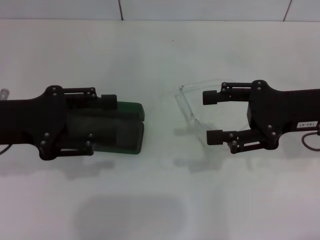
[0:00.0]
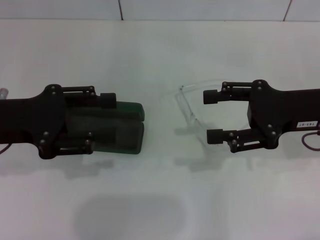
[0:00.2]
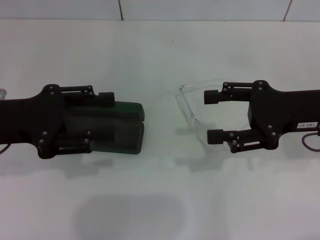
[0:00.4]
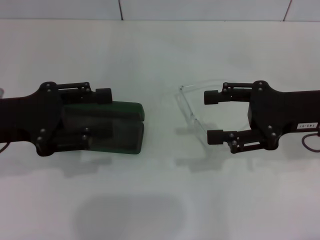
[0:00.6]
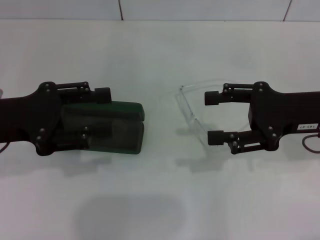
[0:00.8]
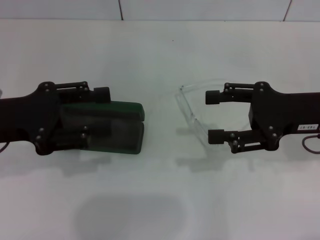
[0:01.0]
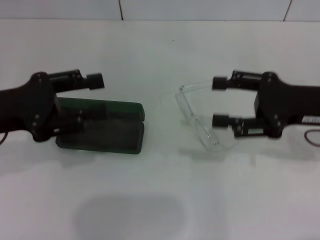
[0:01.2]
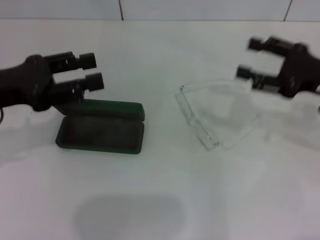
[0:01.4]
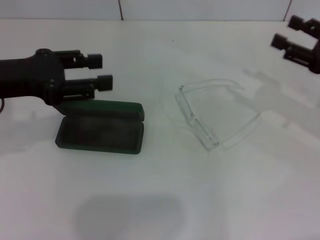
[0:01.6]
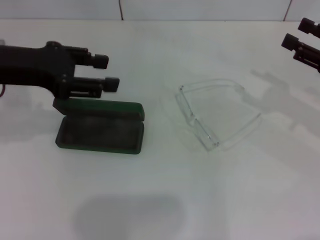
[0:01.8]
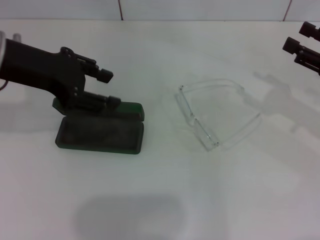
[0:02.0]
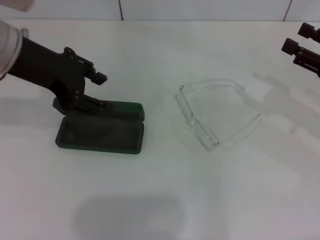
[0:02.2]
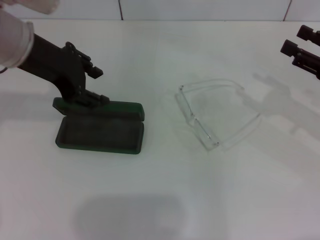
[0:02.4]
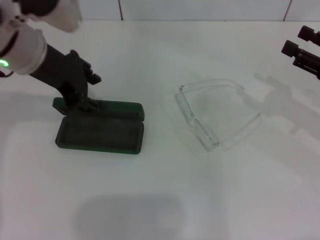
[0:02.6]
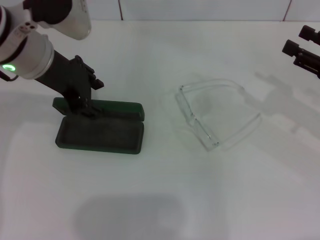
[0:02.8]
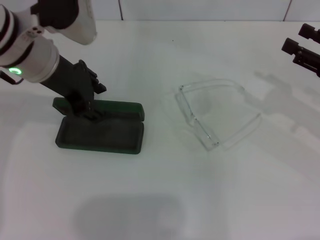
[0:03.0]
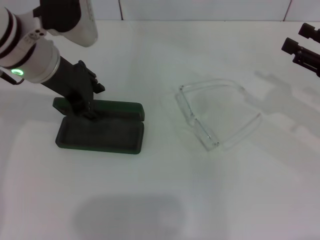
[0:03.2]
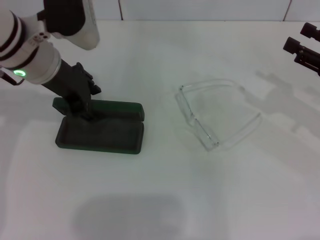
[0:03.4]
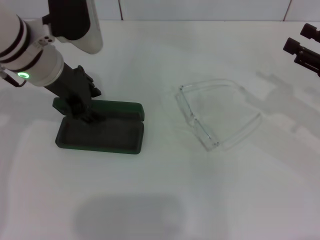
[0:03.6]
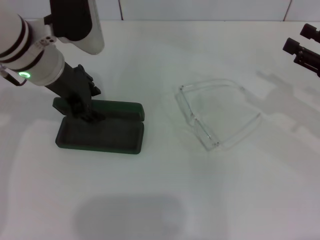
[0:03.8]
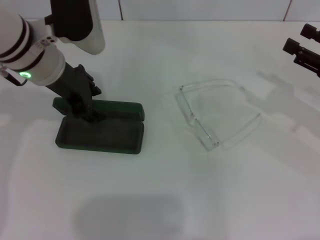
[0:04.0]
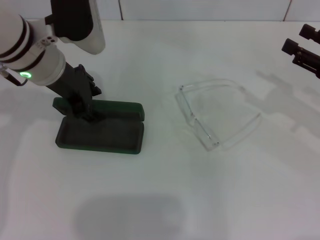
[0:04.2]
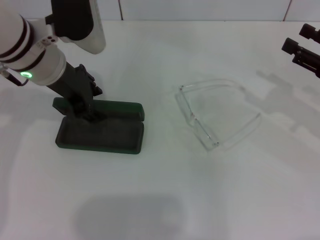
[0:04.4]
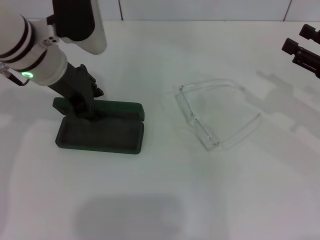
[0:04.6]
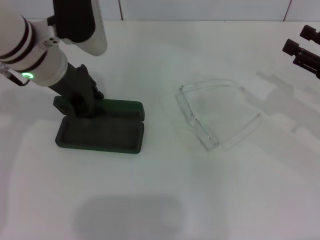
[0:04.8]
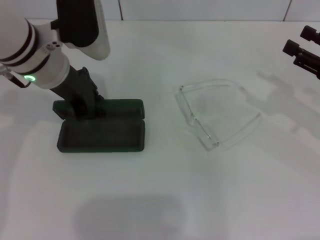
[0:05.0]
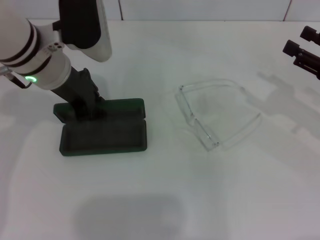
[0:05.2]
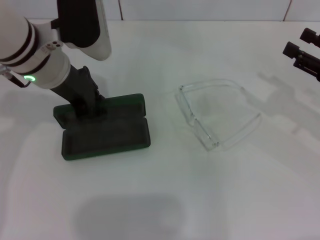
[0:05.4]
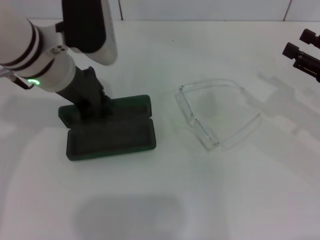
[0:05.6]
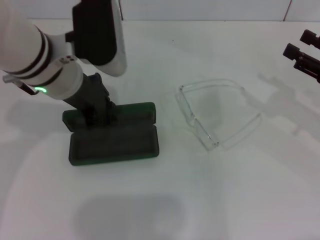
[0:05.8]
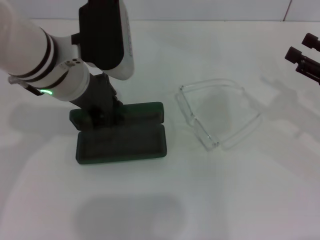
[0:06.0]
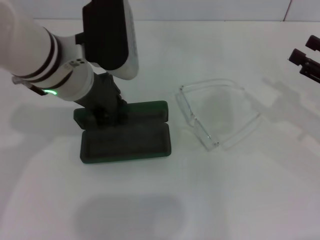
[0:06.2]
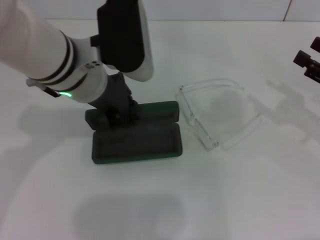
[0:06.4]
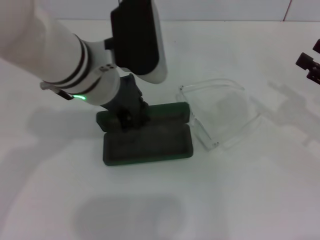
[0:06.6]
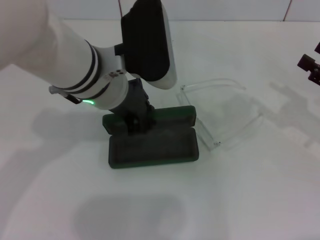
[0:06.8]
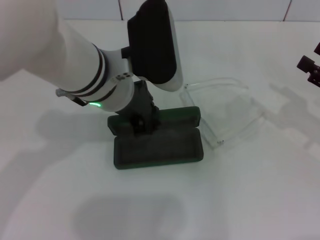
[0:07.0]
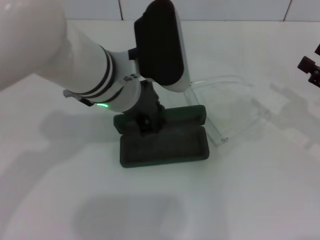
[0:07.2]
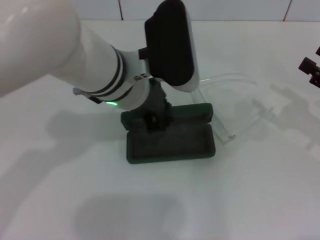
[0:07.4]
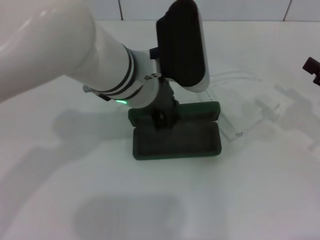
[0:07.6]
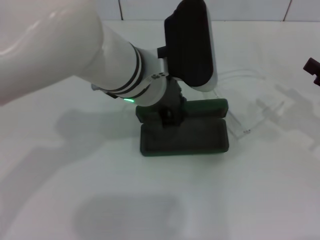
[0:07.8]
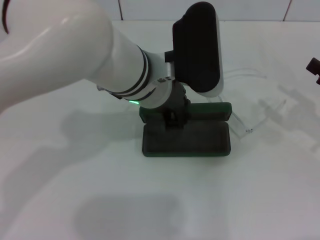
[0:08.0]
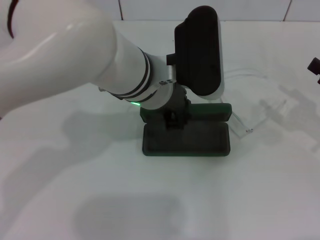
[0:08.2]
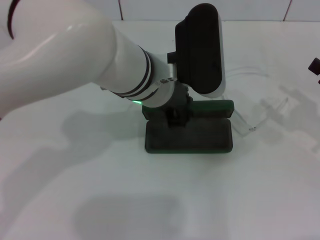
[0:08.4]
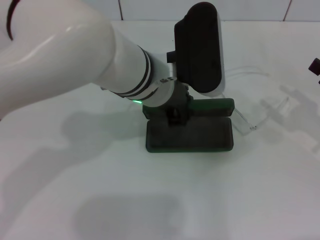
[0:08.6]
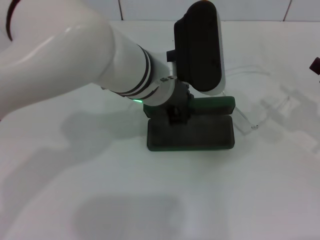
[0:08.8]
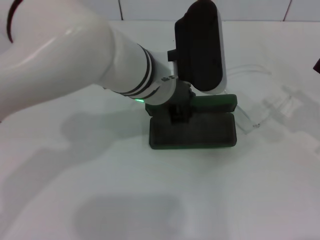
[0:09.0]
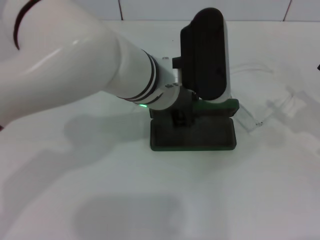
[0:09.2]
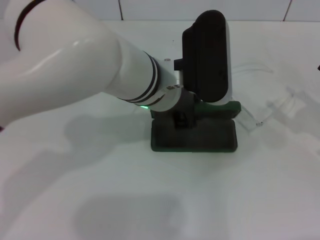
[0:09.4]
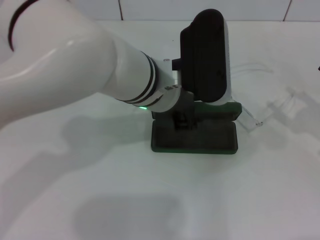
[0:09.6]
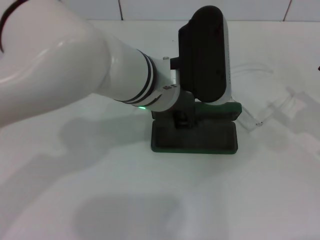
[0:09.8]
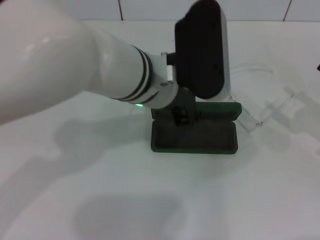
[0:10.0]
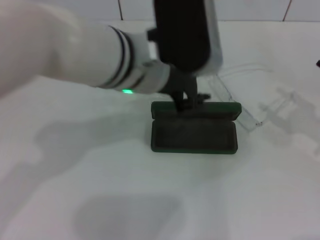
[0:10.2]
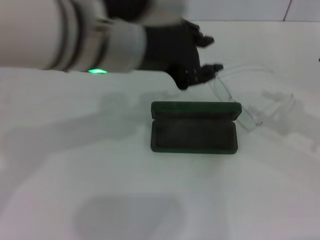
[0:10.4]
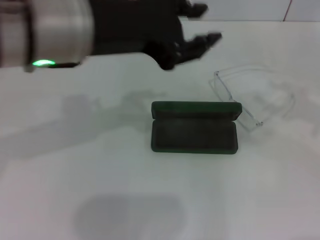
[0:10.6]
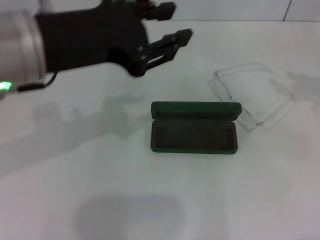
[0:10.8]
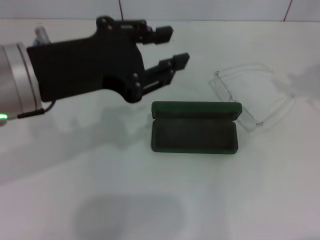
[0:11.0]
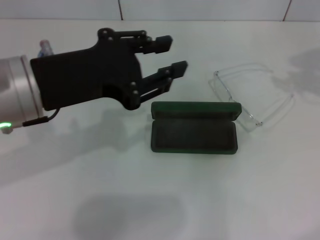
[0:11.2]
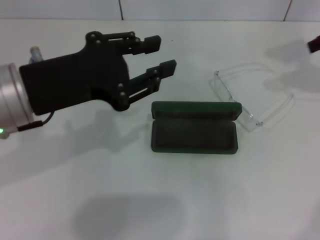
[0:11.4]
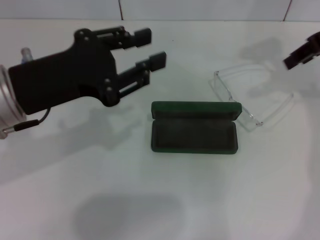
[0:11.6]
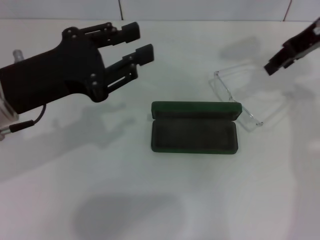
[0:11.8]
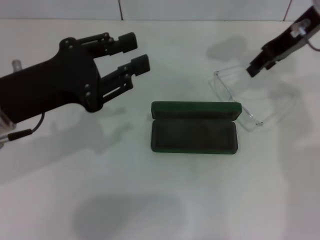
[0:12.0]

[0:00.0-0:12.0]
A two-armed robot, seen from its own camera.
Step, 0:00.0 to 0:05.0: Grab the glasses case with your left hand.
Step, 0:05.4 to 0:09.8: Place the glasses case in the center of the table with your left hand.
0:00.0 to 0:01.6: The right gripper moves to the right, roughly 10 cm.
0:01.6 to 0:03.0: The left gripper shifts some 10 cm to the right and forward.
0:03.0 to 0:04.4: The grippers stay close to where they were, moving slightly.
0:04.4 to 0:06.0: The left gripper moves some 5 cm, and closes its fingers.
0:06.0 to 0:07.6: The left gripper is displaced to the right by approximately 10 cm.
0:07.6 to 0:09.0: There are only small adjustments of the grippers.
0:09.0 to 0:10.4: The left gripper shifts roughly 10 cm upward and to the left; the right gripper shifts some 5 cm upward.
0:10.4 to 0:12.0: The left gripper is displaced to the left and downward by roughly 15 cm. Meanwhile the right gripper shifts some 25 cm to the left, forward and upward.

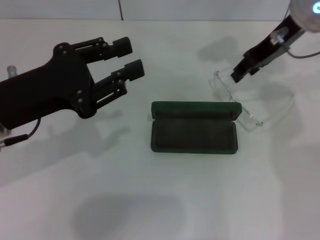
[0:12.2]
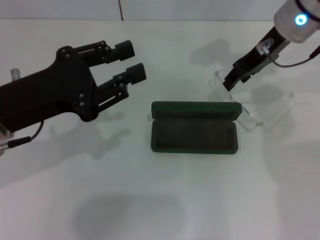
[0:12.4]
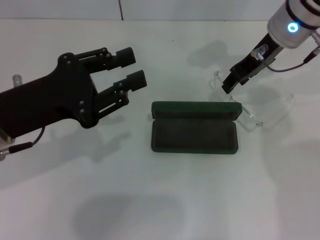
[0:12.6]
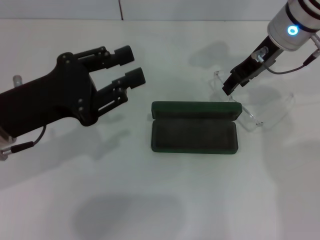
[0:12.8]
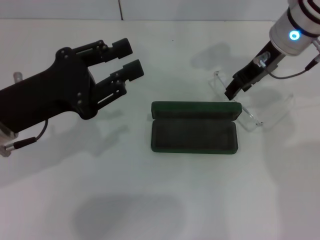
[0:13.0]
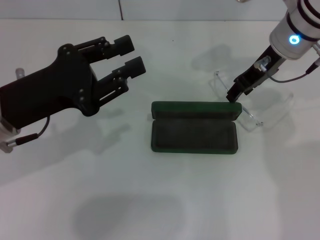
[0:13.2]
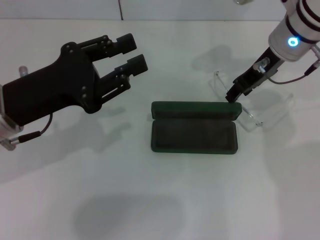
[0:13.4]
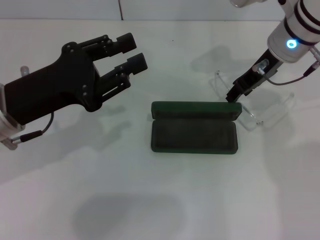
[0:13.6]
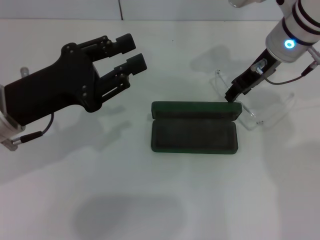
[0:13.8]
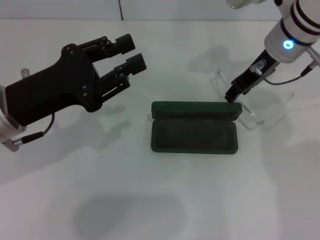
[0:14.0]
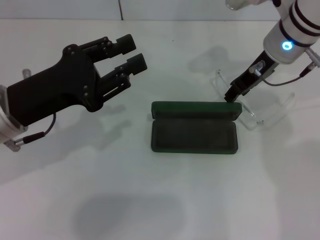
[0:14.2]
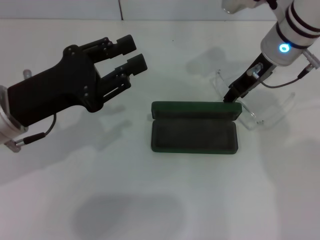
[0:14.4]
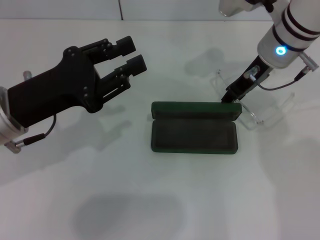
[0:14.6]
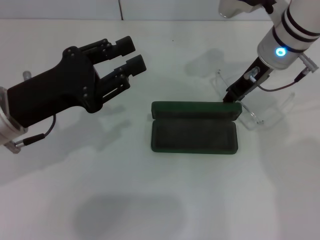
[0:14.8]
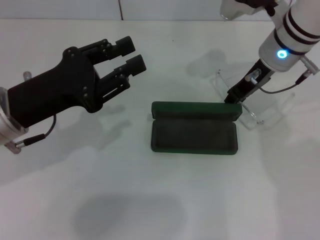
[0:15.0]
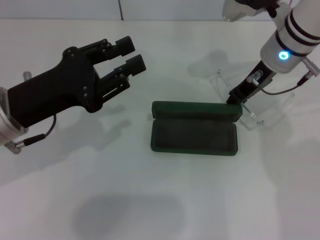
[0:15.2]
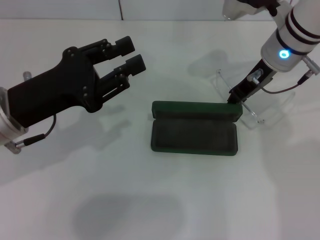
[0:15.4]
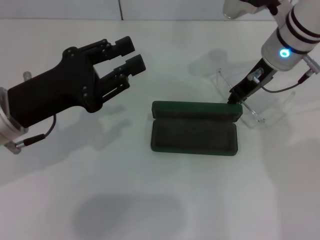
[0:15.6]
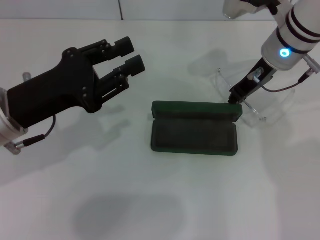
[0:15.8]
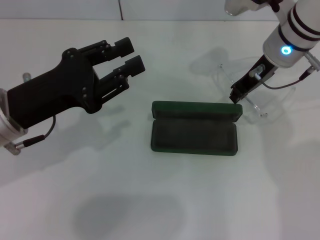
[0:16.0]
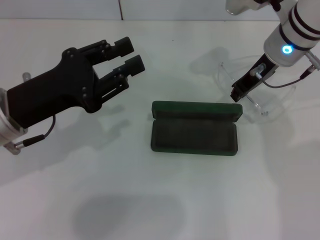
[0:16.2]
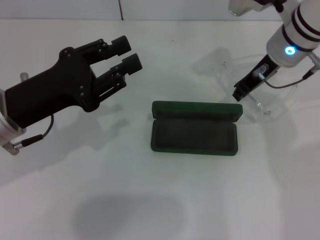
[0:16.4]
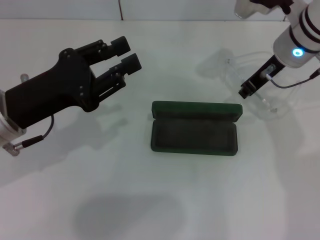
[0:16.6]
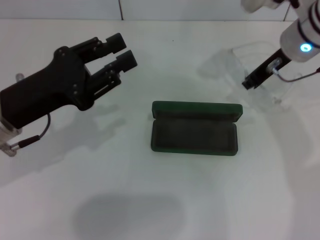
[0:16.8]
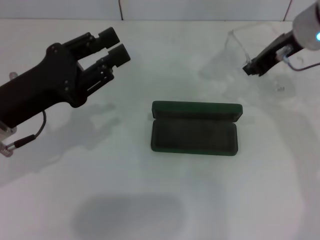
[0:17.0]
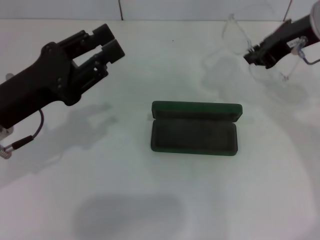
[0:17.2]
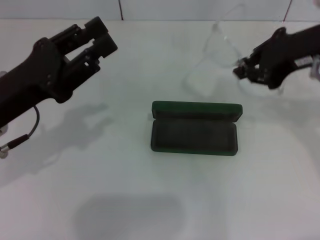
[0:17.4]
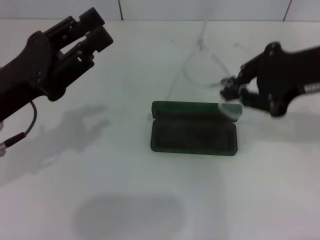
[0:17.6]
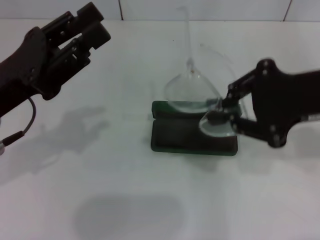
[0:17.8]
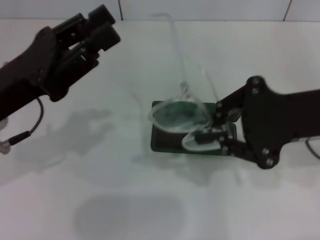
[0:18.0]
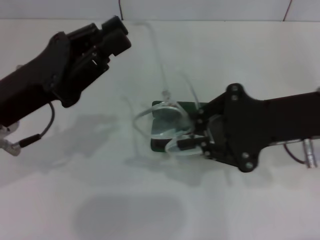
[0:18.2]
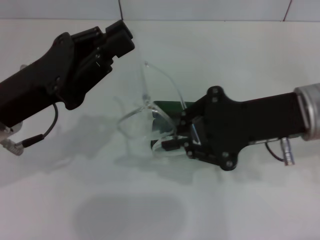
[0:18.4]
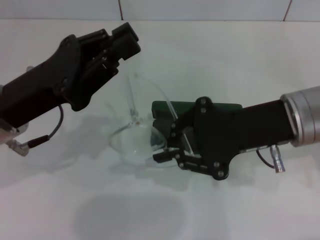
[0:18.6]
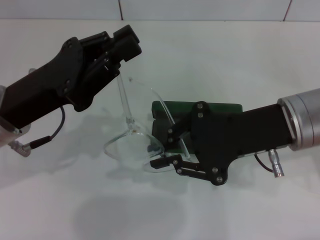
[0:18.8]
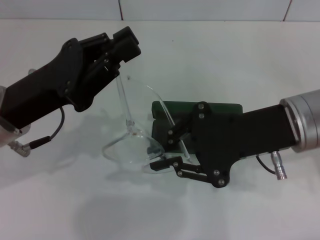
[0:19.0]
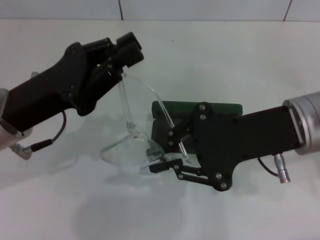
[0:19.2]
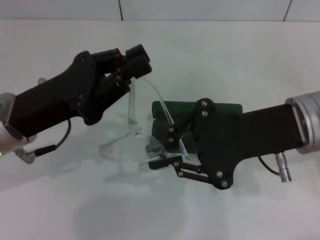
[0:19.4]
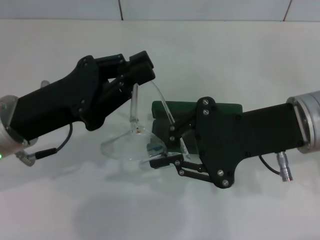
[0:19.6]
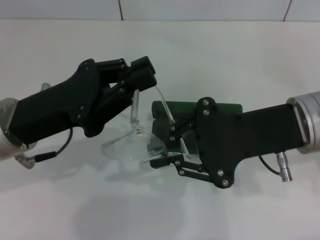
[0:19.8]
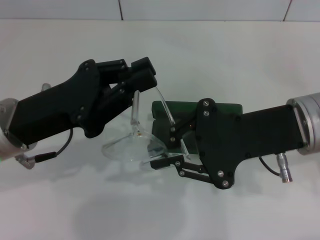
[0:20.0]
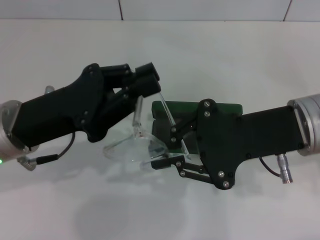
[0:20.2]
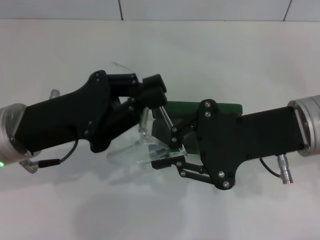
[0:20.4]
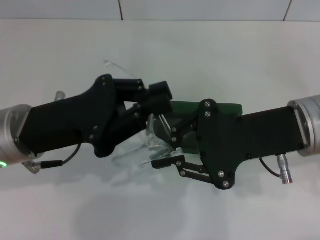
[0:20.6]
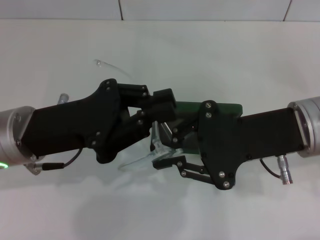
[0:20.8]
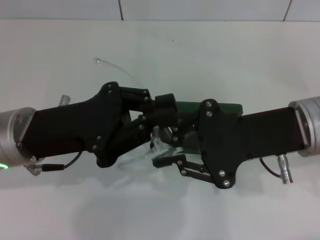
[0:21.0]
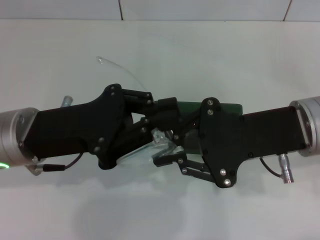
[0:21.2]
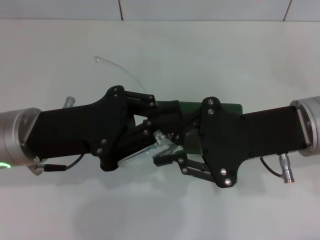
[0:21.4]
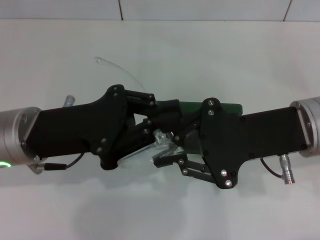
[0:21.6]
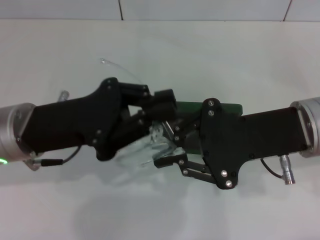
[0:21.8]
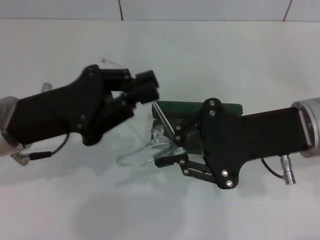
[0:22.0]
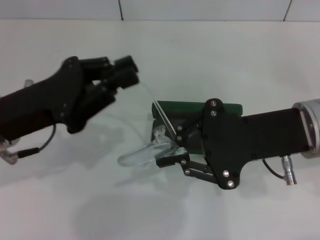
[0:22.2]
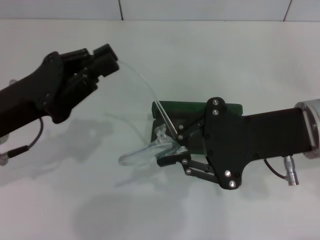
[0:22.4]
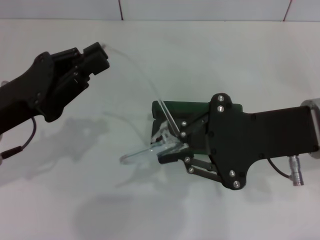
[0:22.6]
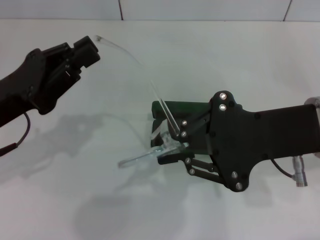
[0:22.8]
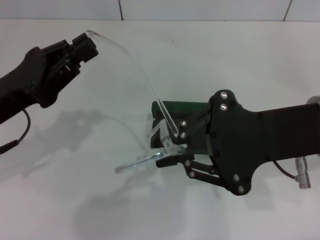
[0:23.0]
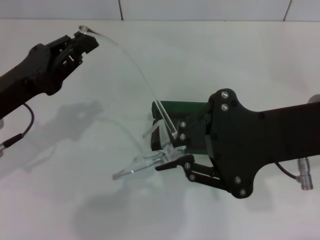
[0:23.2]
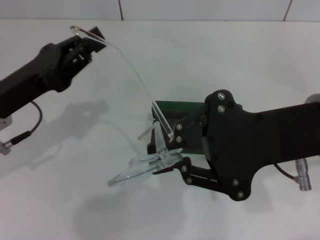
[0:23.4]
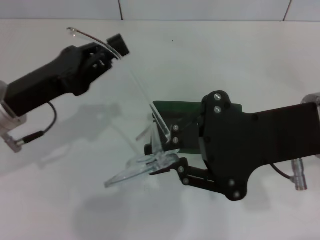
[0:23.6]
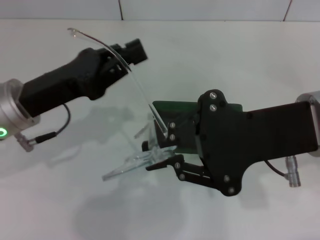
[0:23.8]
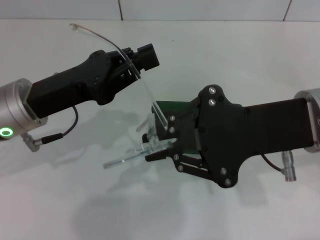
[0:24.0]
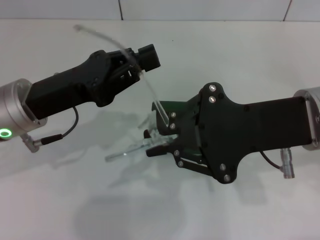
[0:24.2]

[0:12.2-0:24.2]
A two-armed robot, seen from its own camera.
Step, 0:12.2 to 0:15.2: Grab the eyeglass frame with your right hand.
0:12.2 to 0:13.8: The right gripper heads downward, covering approximately 5 cm.
0:13.8 to 0:16.6: The grippers move only a little.
0:16.6 to 0:18.2: The right gripper shifts some 15 cm backward.
0:19.8 to 0:21.2: The grippers make only small movements.
0:21.2 to 0:22.6: The left gripper heads to the left, covering roughly 5 cm.
0:22.6 to 0:24.2: The left gripper moves roughly 5 cm.
